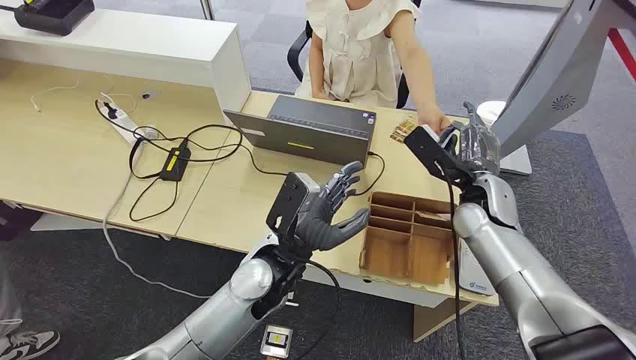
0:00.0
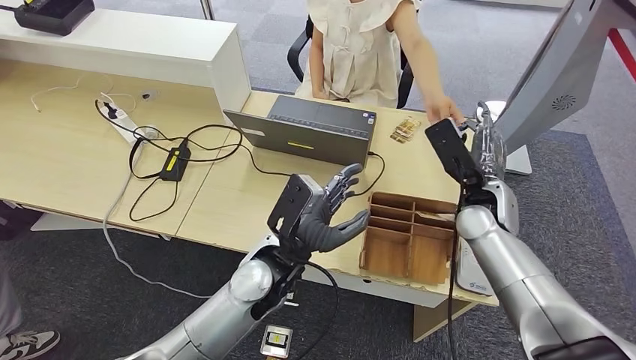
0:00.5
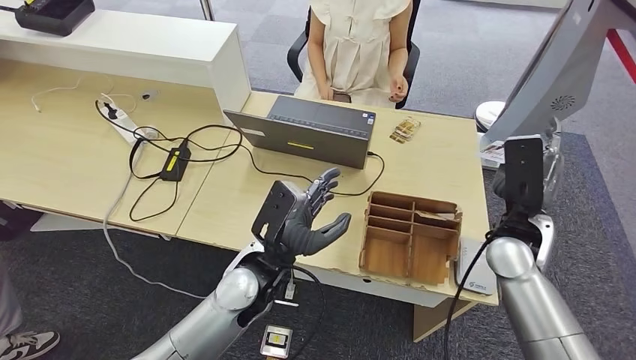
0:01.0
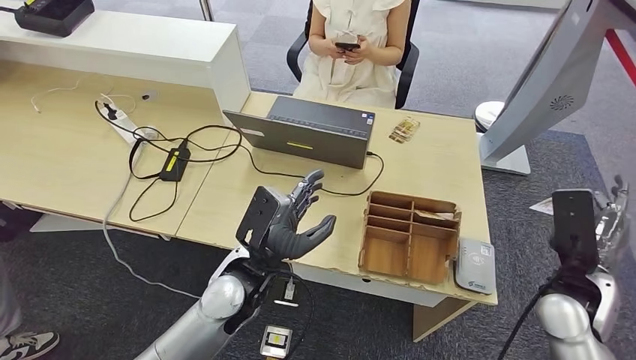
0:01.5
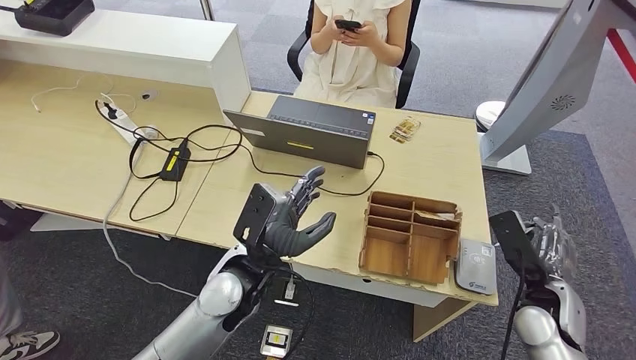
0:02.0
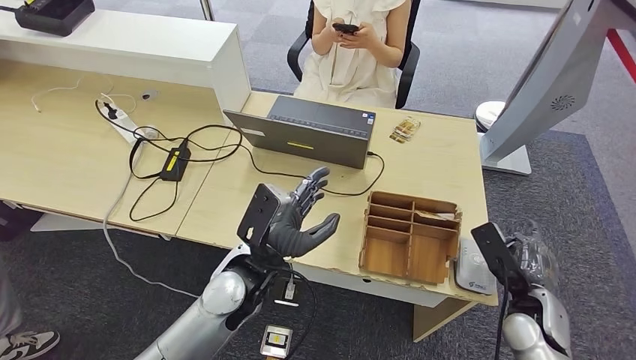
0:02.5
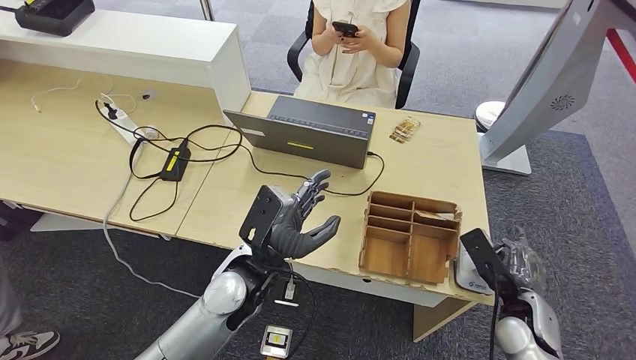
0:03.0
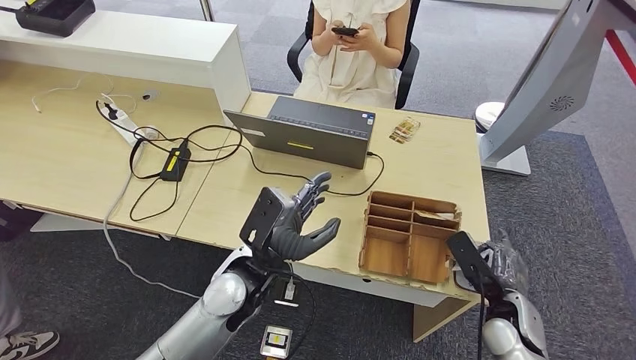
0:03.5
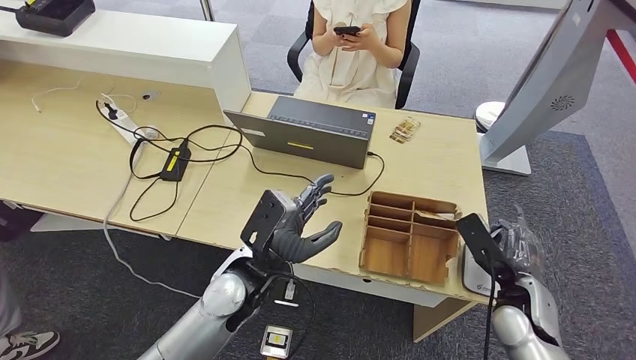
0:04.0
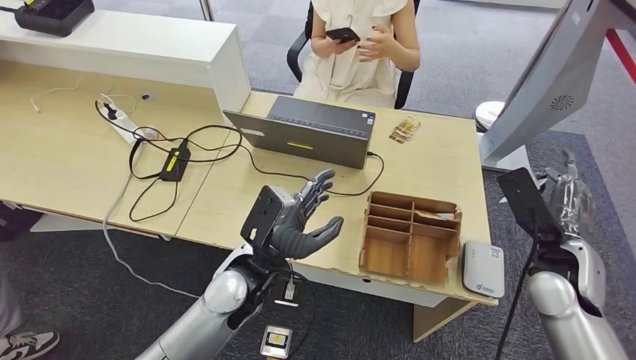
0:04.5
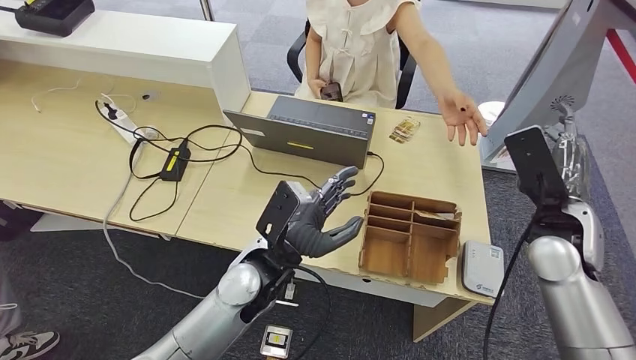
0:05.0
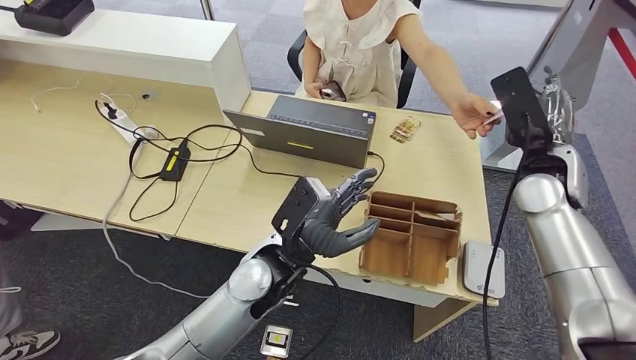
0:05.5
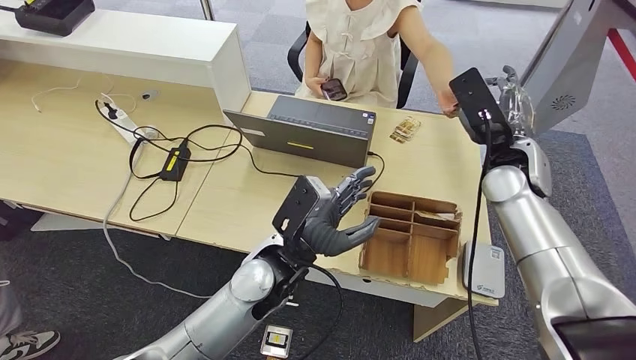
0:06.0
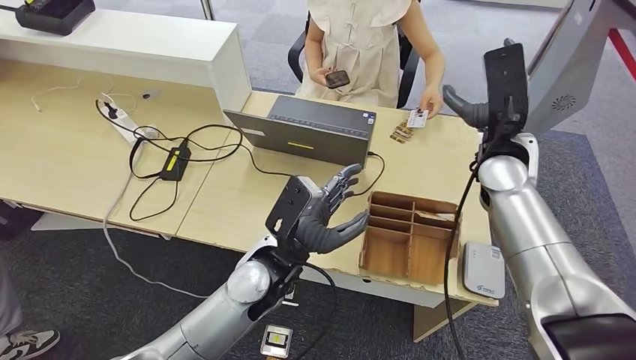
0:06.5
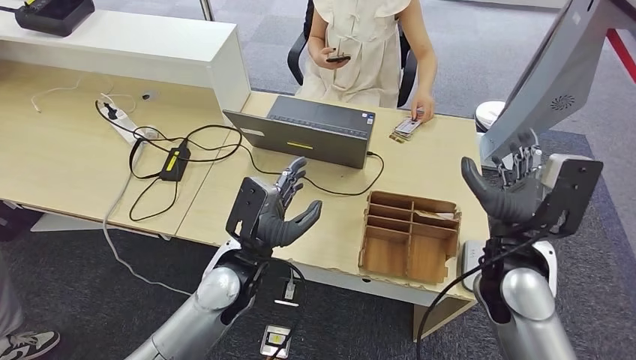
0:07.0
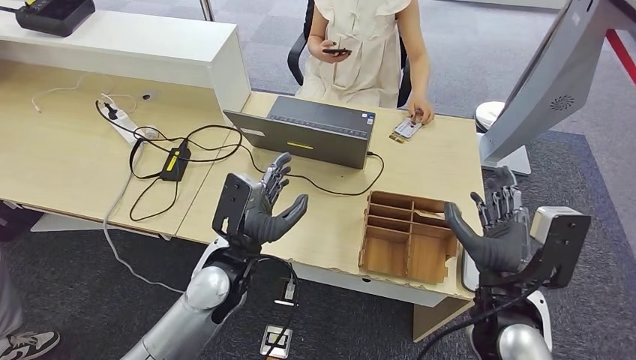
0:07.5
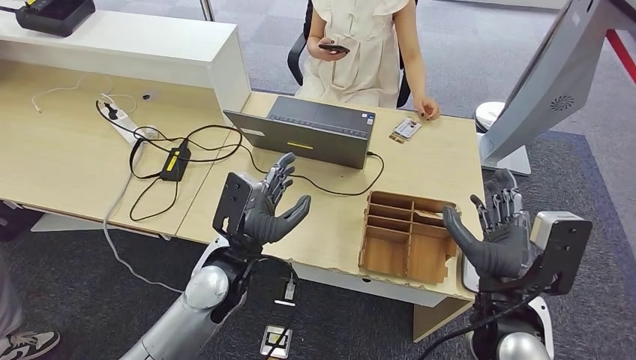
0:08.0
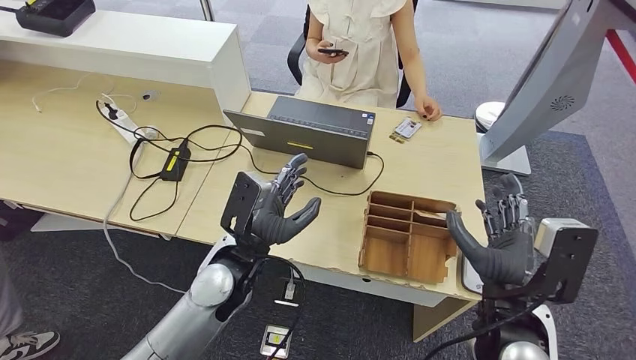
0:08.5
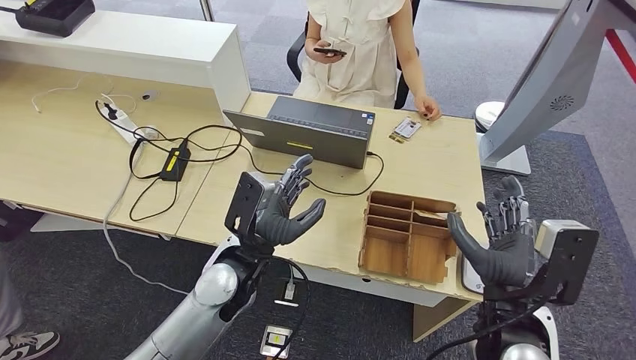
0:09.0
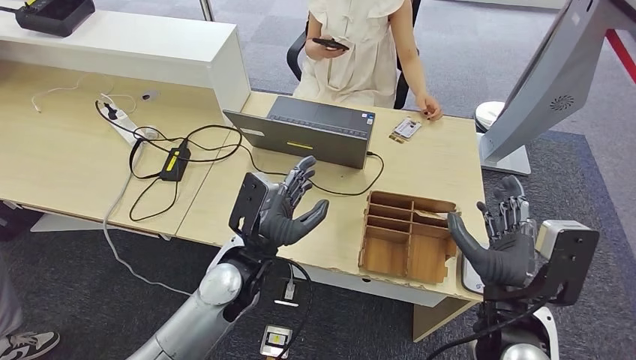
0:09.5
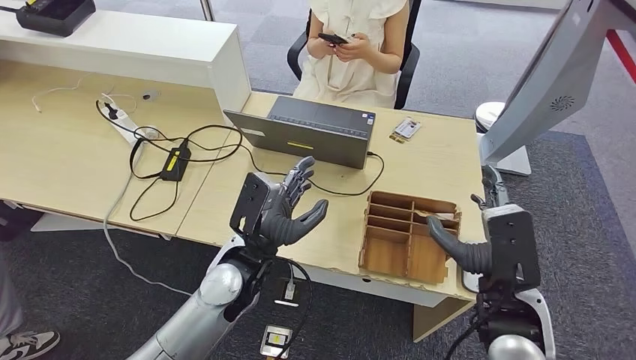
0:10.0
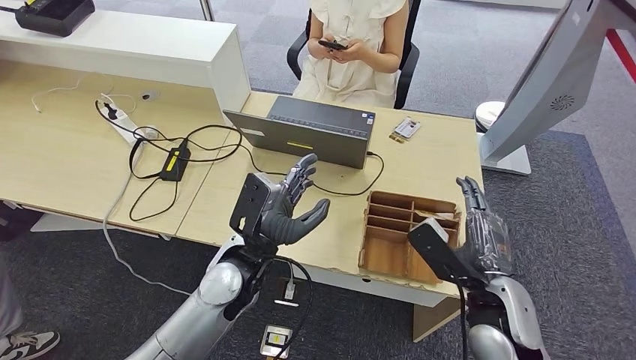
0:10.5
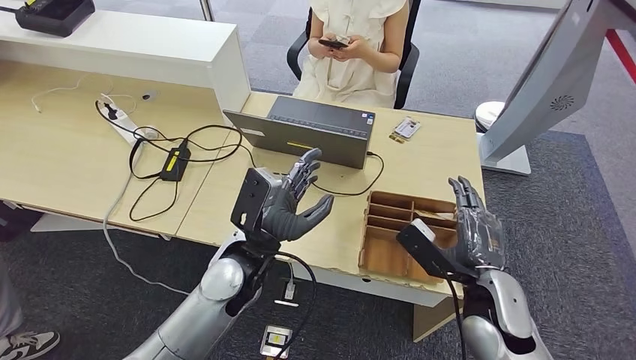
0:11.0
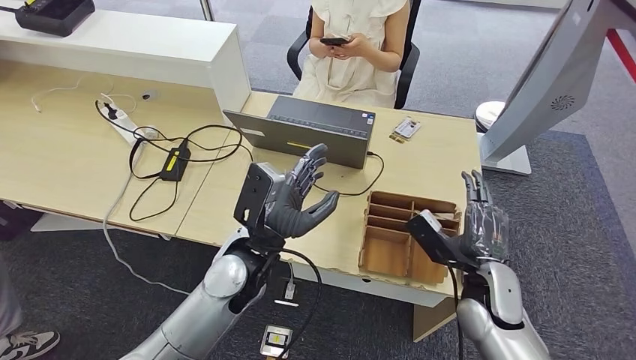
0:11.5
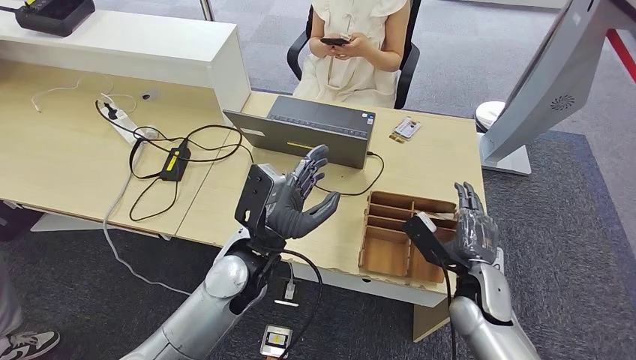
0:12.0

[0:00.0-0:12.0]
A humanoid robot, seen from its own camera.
Step, 0:00.0 to 0:01.0: Take the ID card from the person's hand.
Step, 0:01.5 to 0:04.5: Place the ID card on the card reader.
Step, 0:05.0 to 0:07.0: Hand the ID card to the person.
0:10.0 to 0:12.0: The right hand travels downward and forward by some 15 cm.

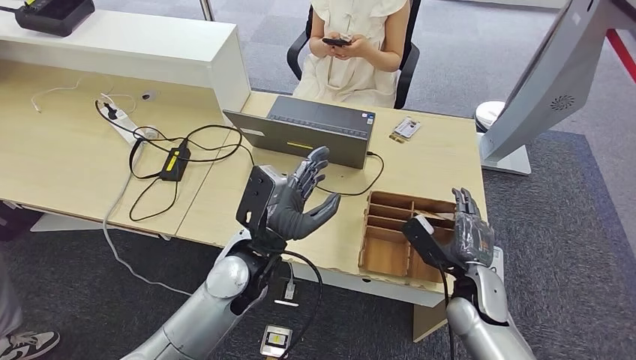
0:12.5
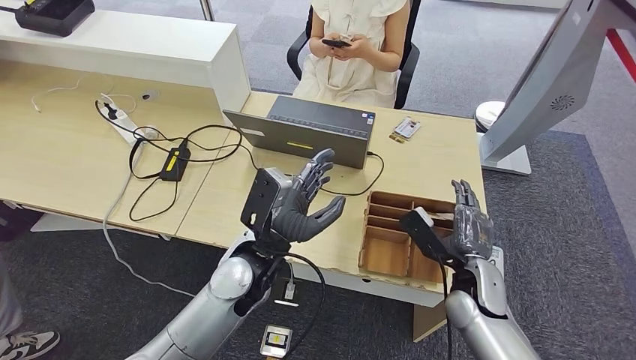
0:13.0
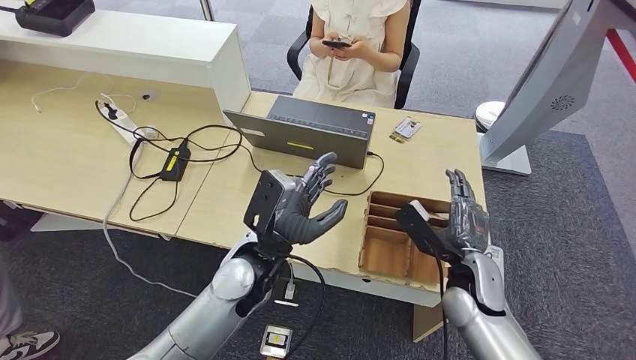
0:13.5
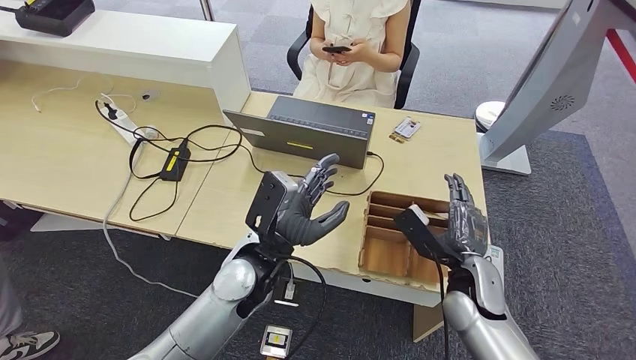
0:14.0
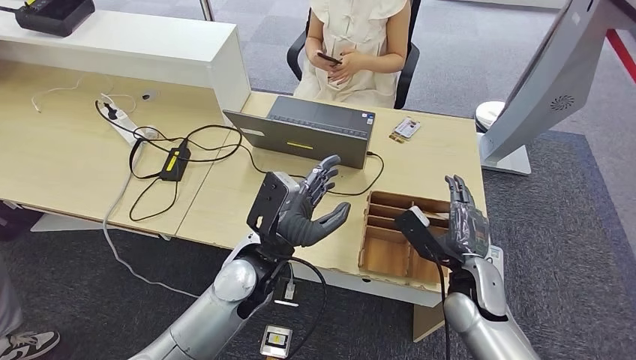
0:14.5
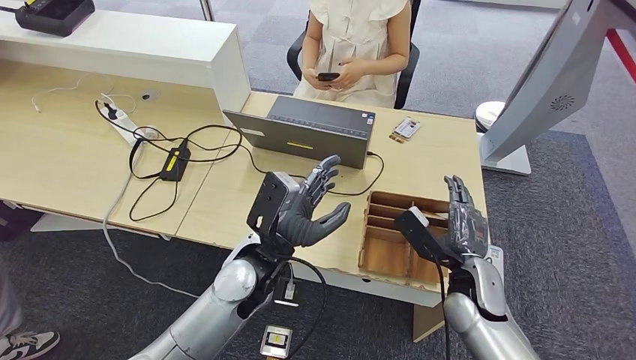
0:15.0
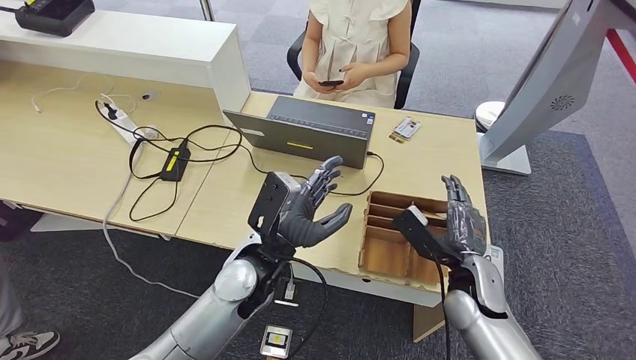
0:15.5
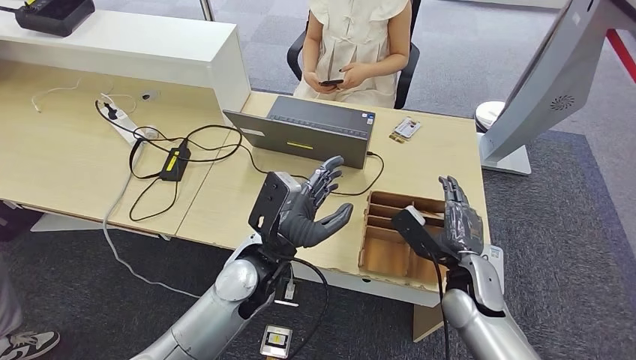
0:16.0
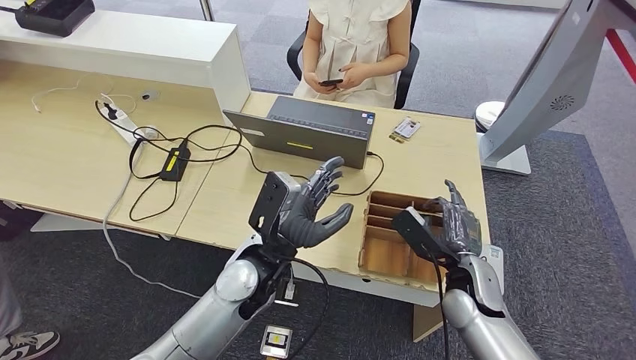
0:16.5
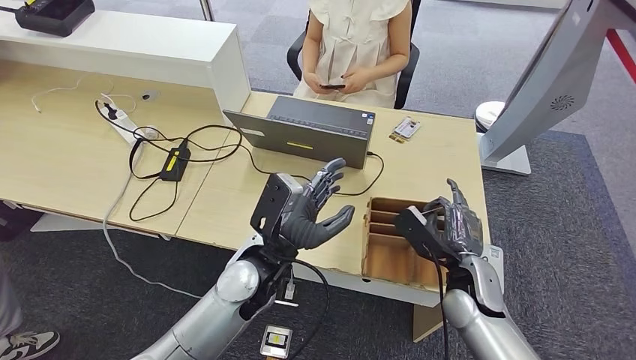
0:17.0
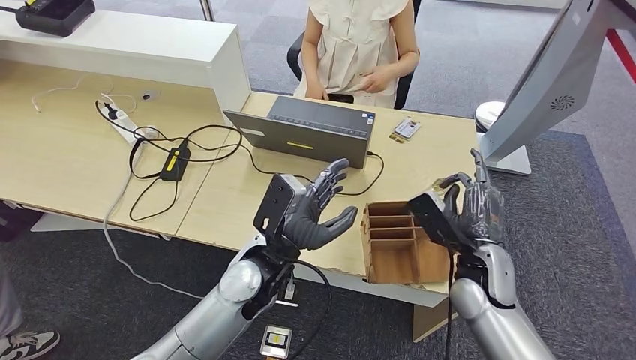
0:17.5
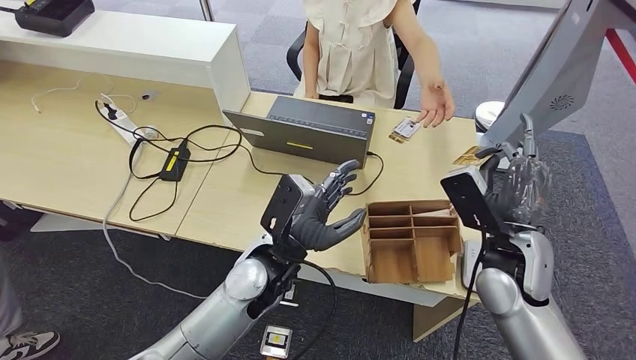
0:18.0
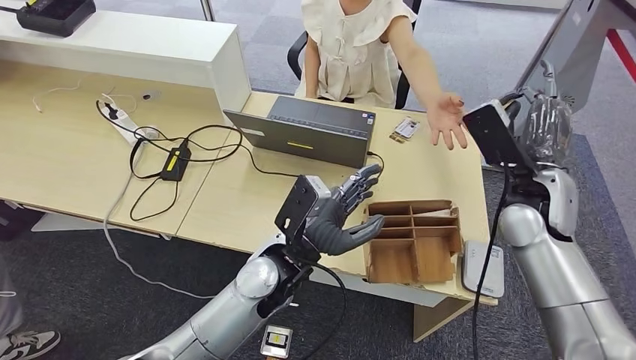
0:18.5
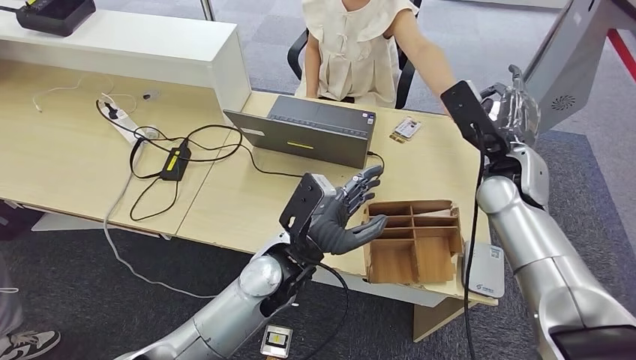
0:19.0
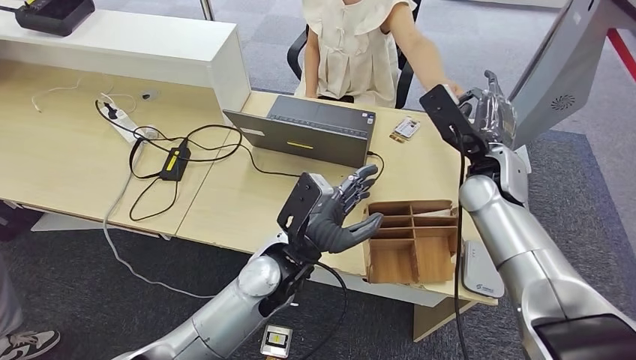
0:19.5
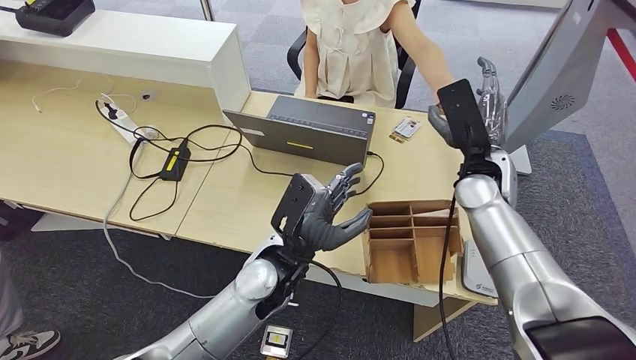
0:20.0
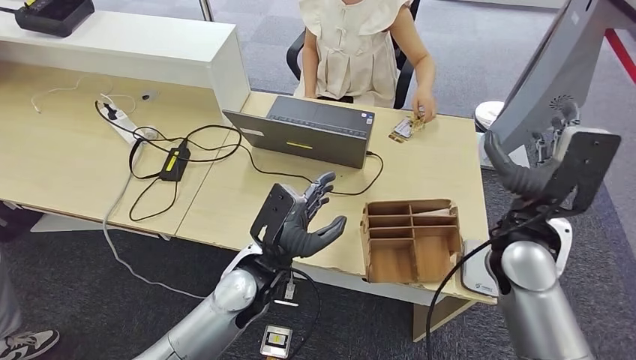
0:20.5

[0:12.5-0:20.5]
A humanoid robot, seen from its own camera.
Step, 0:16.5 to 0:18.0: Pick up the room key from the key card box.
Step, 0:18.5 to 0:20.5: Hand the room key to the person.
0:12.5 to 0:16.5: There are only small adjustments of the hands.
